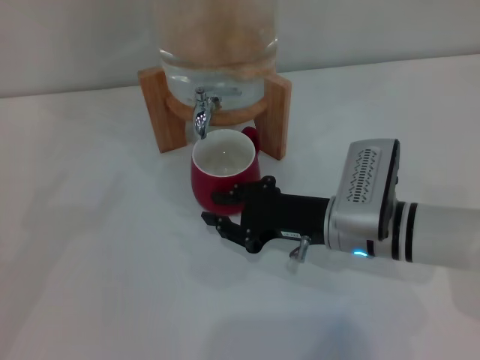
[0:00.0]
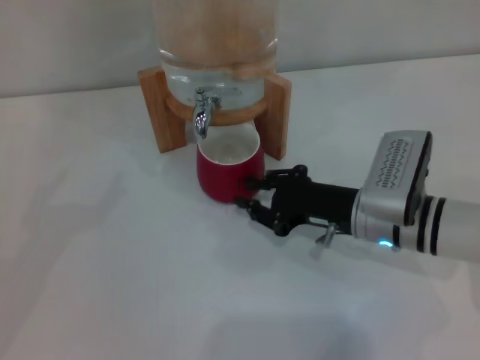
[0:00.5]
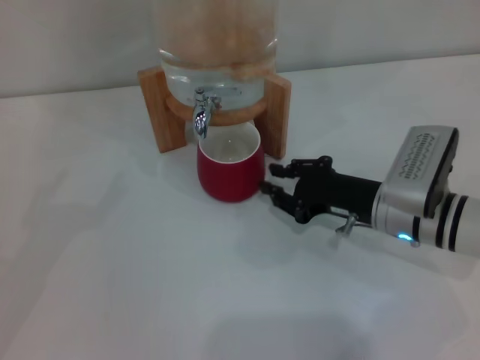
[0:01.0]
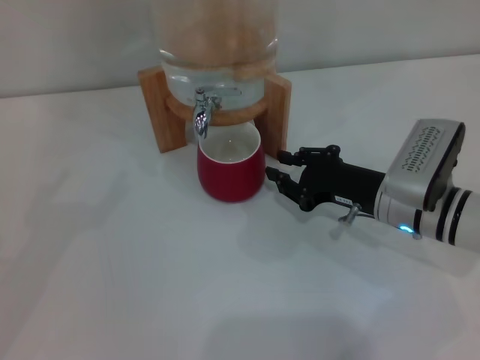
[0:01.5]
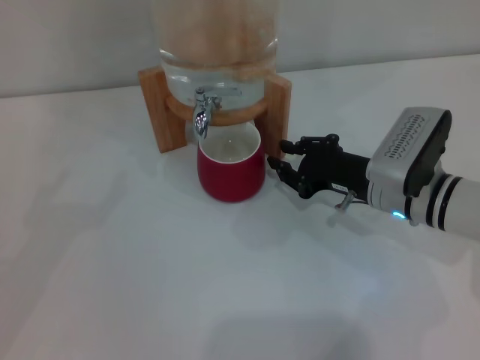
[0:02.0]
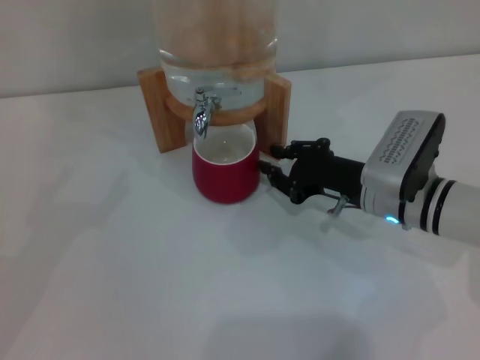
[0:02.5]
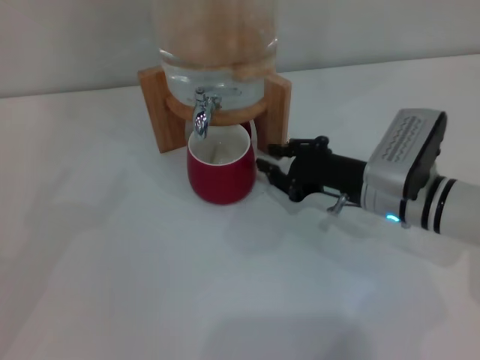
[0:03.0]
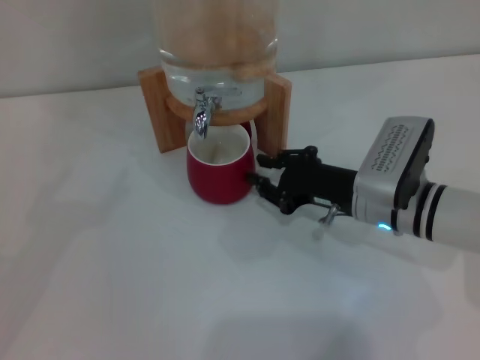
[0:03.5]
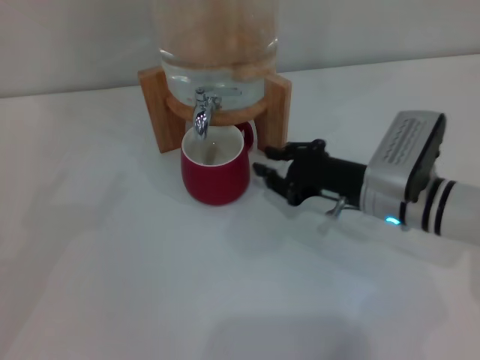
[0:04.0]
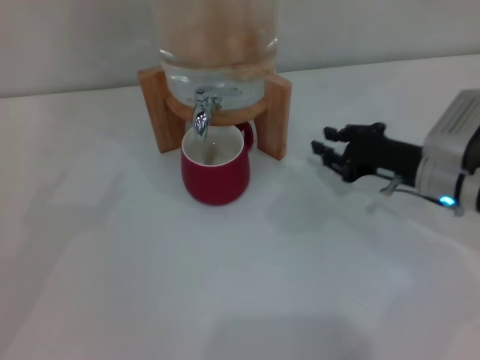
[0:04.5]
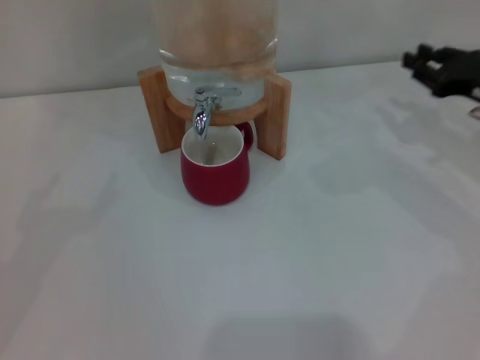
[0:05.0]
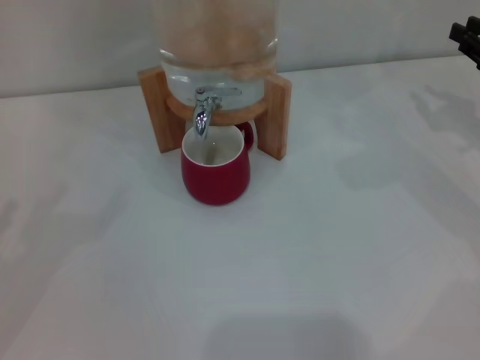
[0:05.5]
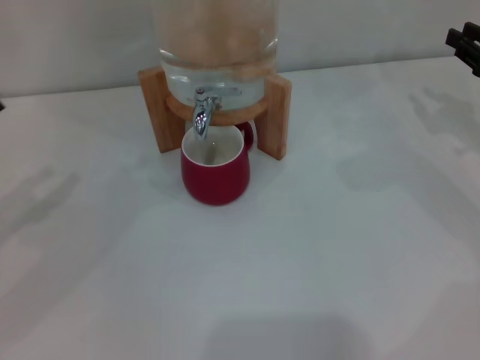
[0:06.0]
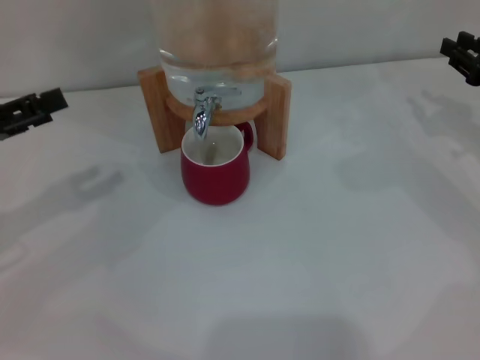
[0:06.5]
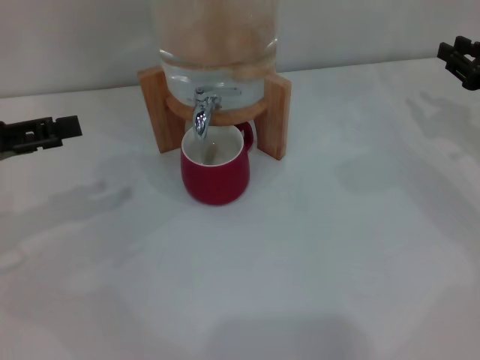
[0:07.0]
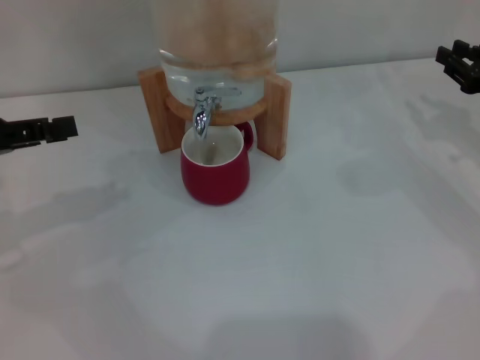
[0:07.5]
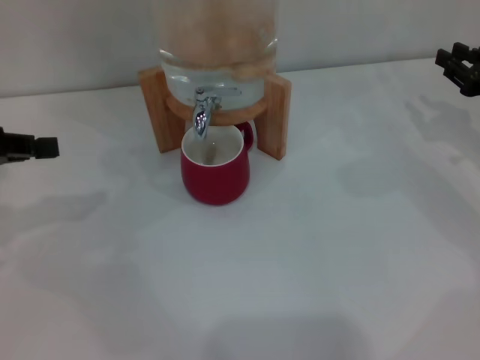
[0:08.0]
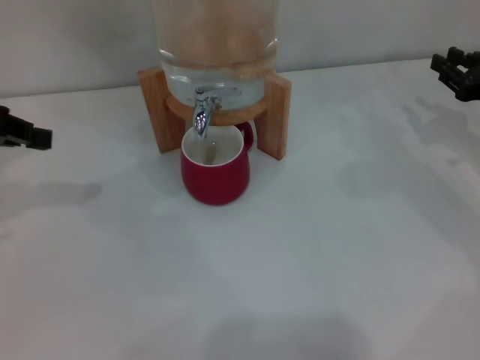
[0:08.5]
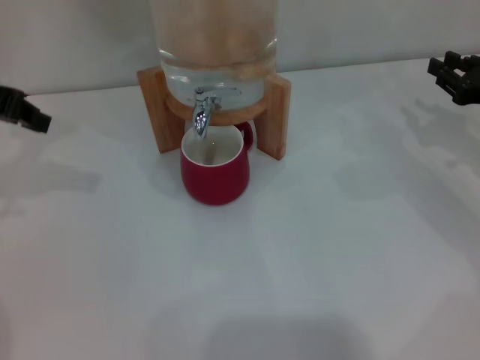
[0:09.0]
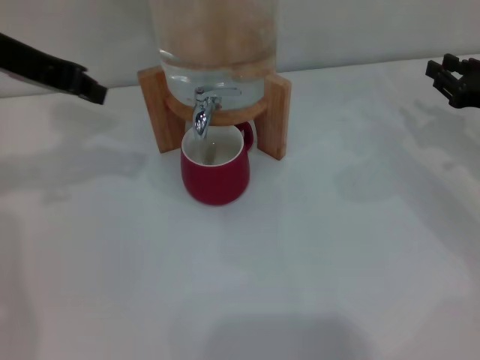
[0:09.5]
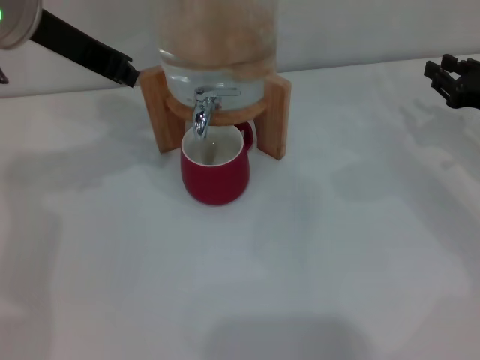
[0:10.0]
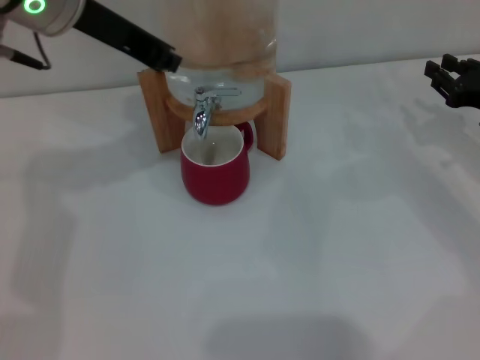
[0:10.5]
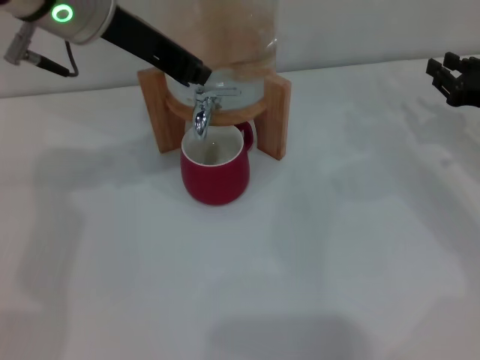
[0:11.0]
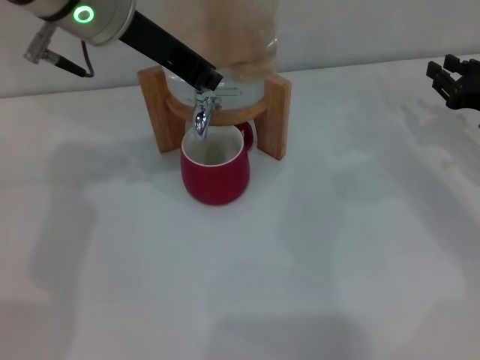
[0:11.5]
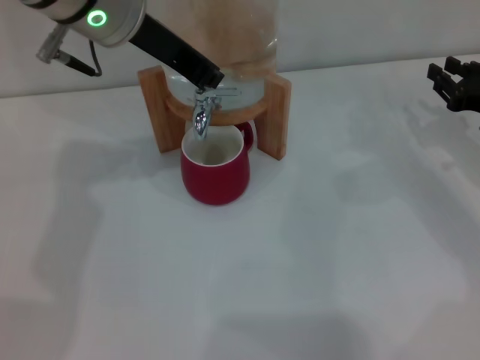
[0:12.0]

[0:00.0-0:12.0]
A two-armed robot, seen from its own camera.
Task of the whole recording: the right gripper pick up the red cup and place it horizontally under the faucet, the left gripper turn on the faucet to fill the cup, and then turn off the faucet.
Step, 0:00.0 to 0:04.0: Move the cup beneath the water dispenser nozzle with the right gripper.
0:00.0 to 0:02.0: The right gripper travels to the right by approximately 5 cm.
0:02.0 to 0:04.0: The grippers move only a little.
0:04.0 to 0:06.0: The right gripper moves to the right, some 20 cm. The left gripper is displaced forward and to the right by approximately 5 cm.
0:06.0 to 0:08.0: The left gripper is displaced upward by roughly 5 cm, and closes its fingers.
0:08.0 to 0:10.0: The left gripper goes approximately 20 cm to the right and upward.
0:10.0 to 0:12.0: The left gripper goes approximately 5 cm to the right.

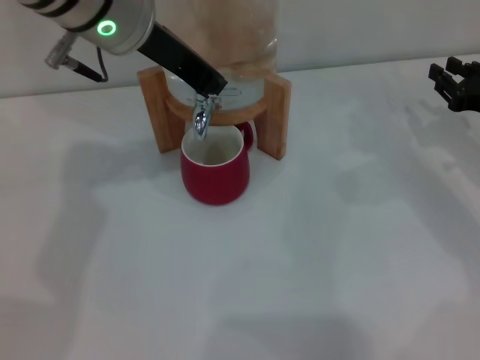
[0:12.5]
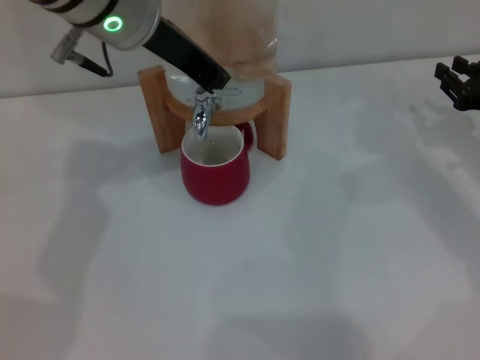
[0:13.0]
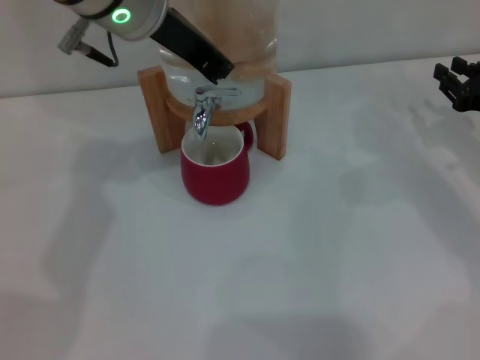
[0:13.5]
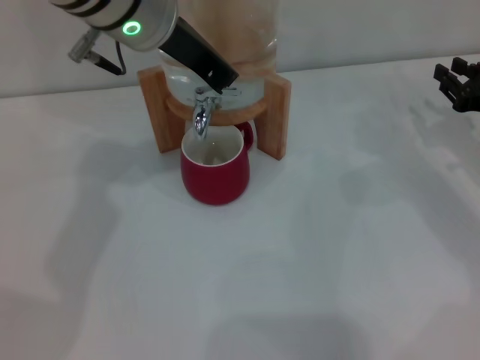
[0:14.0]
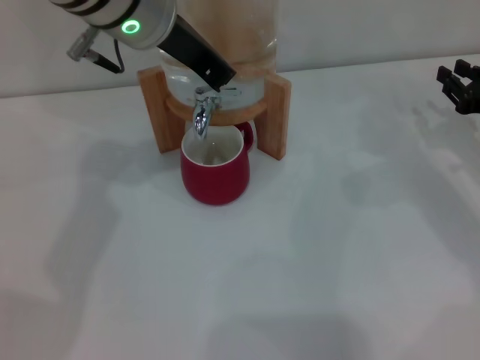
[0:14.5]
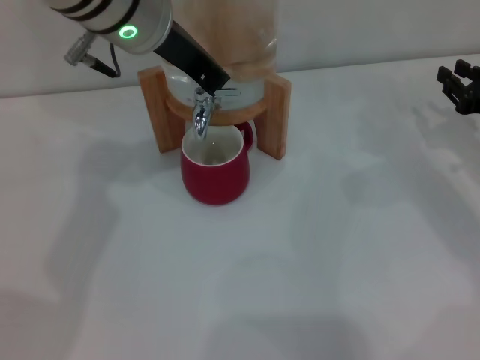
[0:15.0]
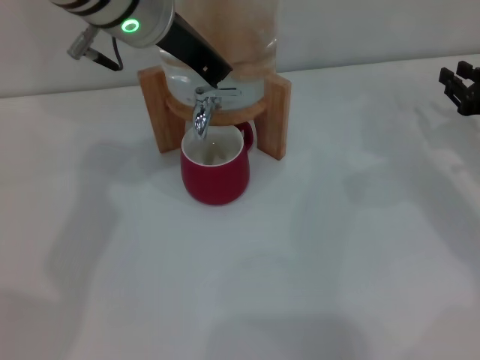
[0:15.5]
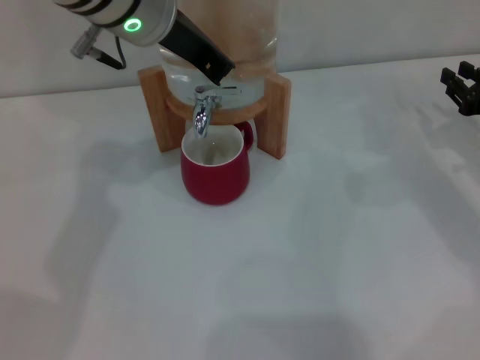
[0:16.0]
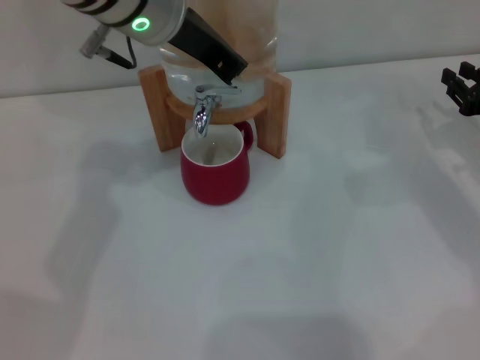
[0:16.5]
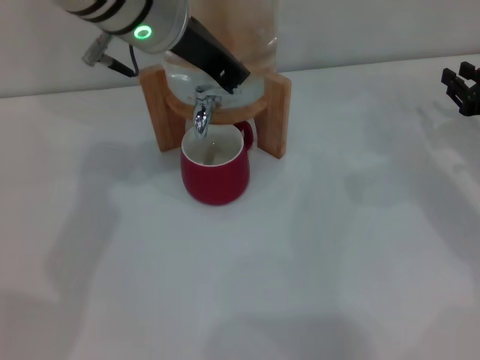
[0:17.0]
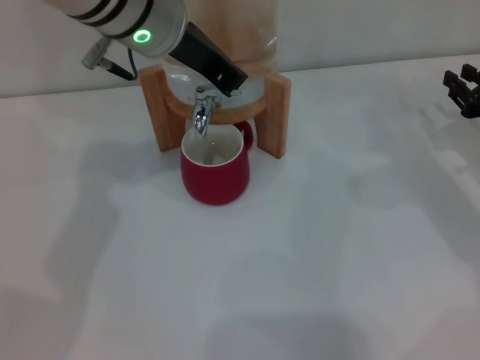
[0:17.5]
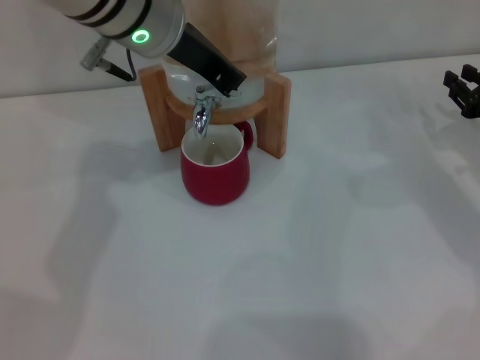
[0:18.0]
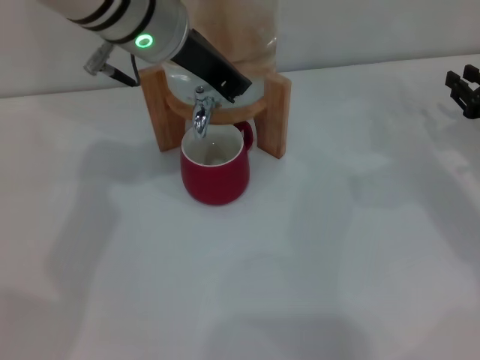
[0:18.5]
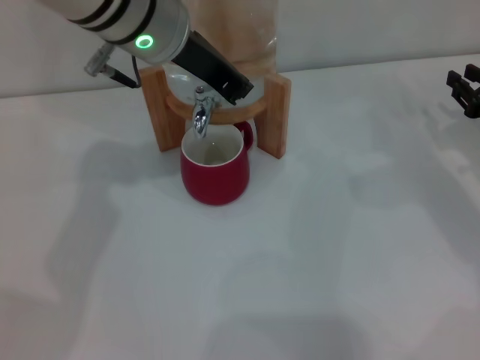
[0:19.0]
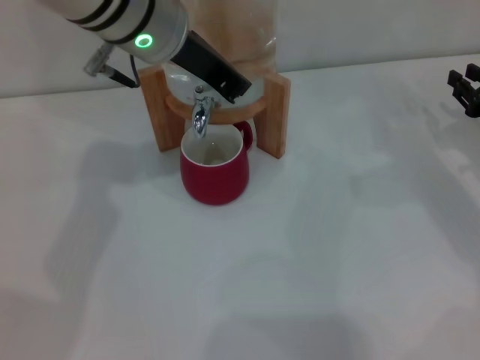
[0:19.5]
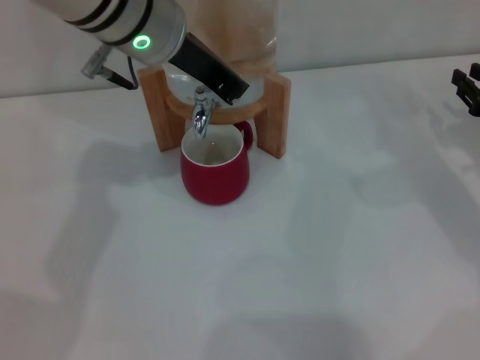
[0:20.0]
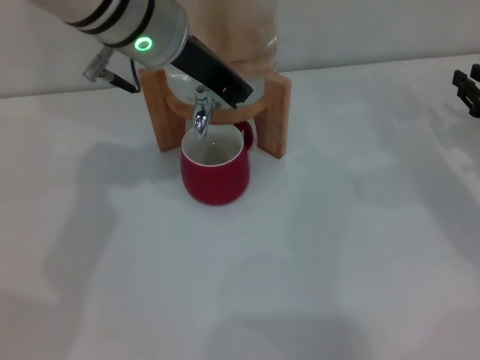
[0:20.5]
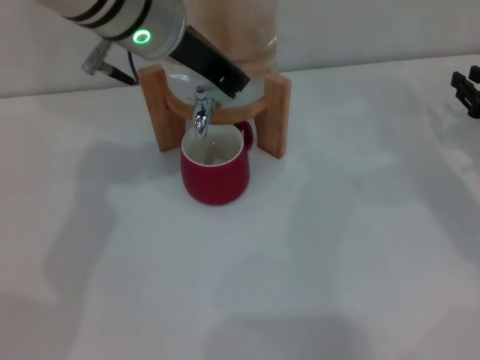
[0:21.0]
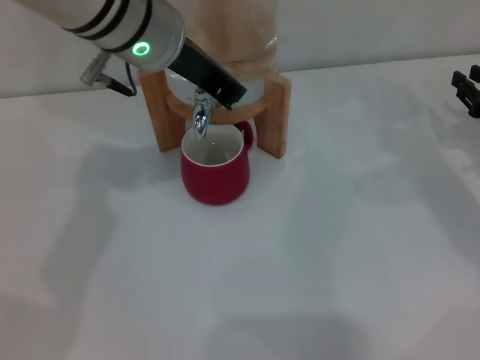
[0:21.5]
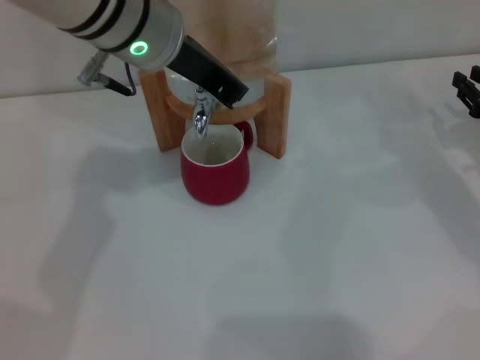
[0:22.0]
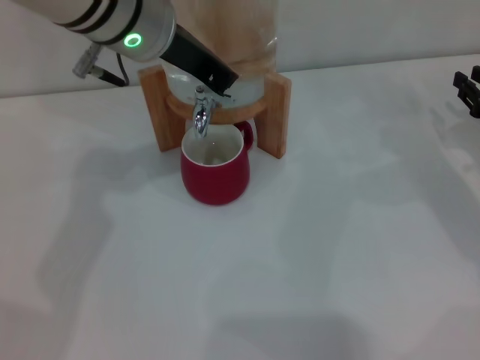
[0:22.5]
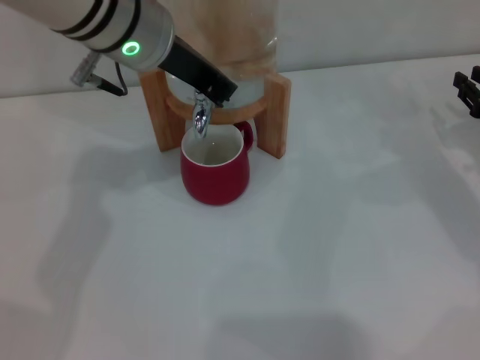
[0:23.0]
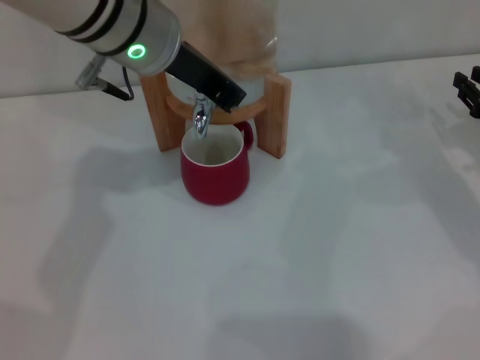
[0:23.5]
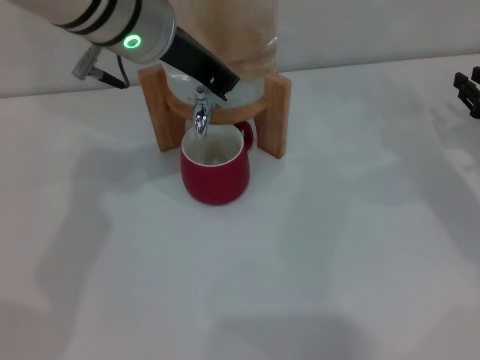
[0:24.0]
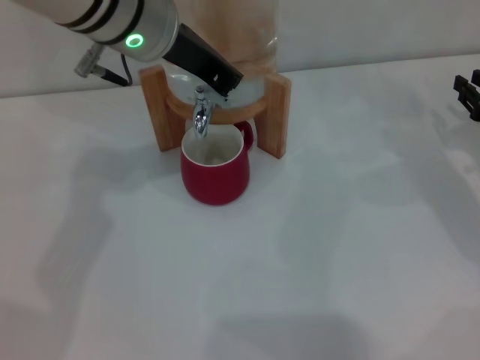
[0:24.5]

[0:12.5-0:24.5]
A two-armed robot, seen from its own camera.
Task of the whole recording: the right gripper pick up the red cup and place it horizontally under the faucet, the left gripper turn on the faucet to fill the cup, and then turn off the faucet.
0:12.5 to 0:14.5: The grippers move only a little.
0:14.5 to 0:18.5: Both grippers stay put.
0:18.5 to 0:20.5: Both grippers stay put.
0:20.5 to 0:22.5: The grippers move only a little.
0:22.5 to 0:24.5: Neither gripper changes place.

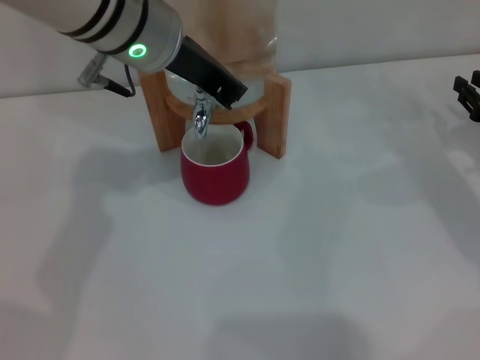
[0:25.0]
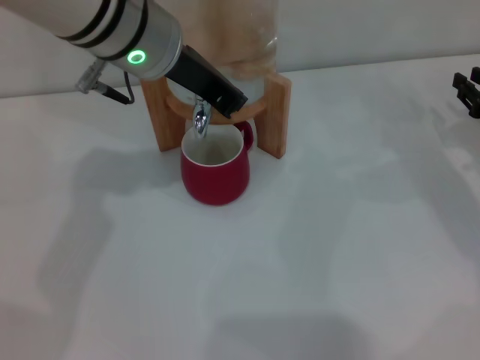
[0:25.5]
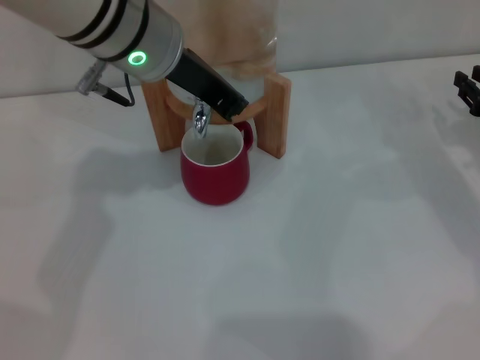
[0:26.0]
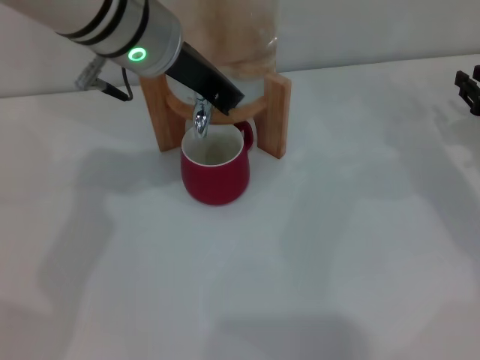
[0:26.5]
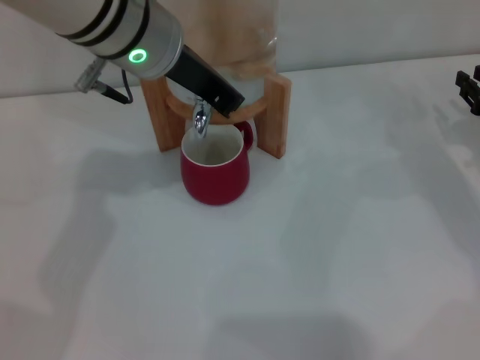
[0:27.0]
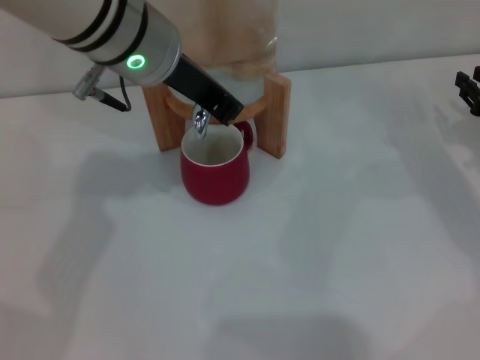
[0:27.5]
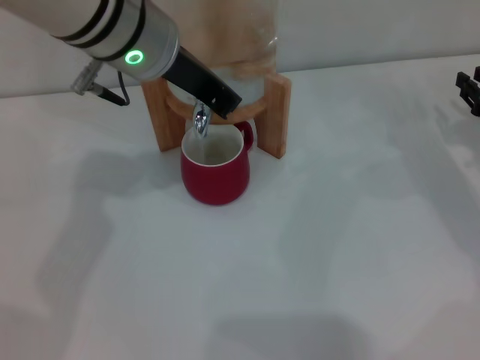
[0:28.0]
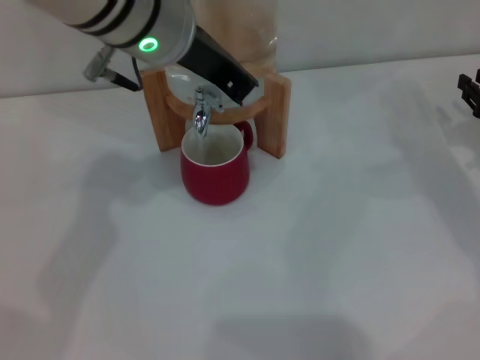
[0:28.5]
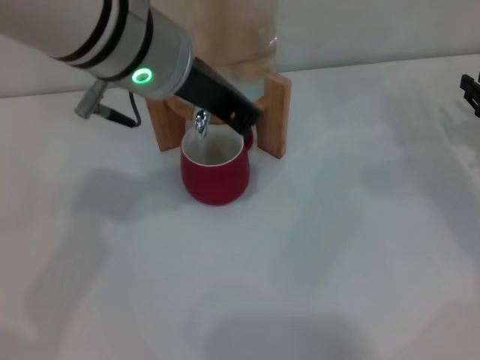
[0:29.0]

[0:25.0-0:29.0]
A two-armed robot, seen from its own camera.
Task of the whole recording: the right gripper pick up the red cup and place it horizontally under the faucet, the left gripper turn on the faucet to fill the cup, and then turn off the faucet.
0:25.0 to 0:27.0: Neither gripper changes place.
0:27.0 to 0:29.0: The grippers move only a little.
